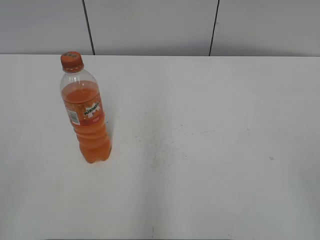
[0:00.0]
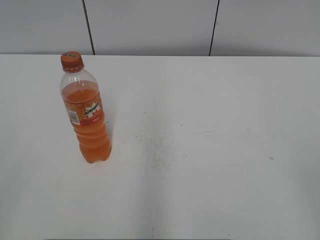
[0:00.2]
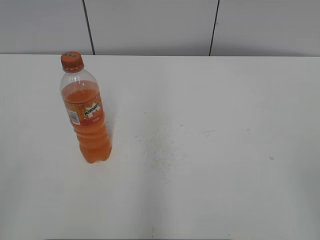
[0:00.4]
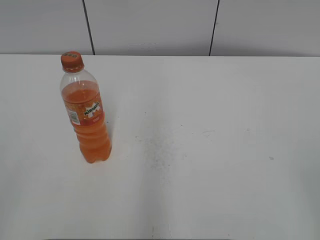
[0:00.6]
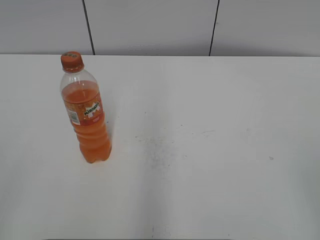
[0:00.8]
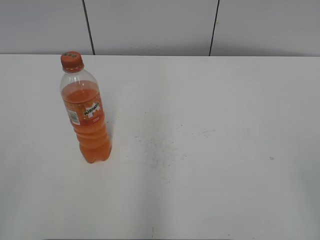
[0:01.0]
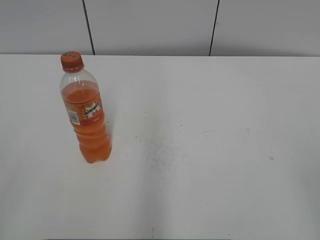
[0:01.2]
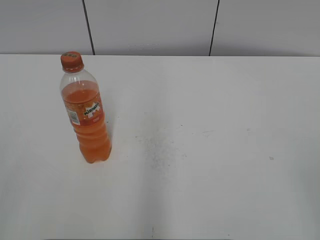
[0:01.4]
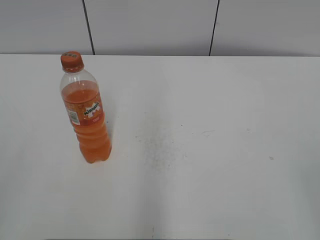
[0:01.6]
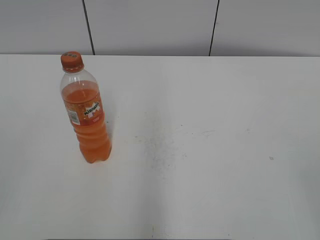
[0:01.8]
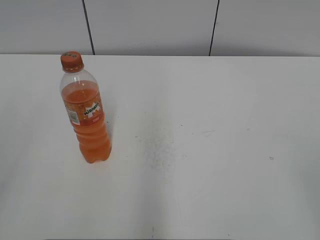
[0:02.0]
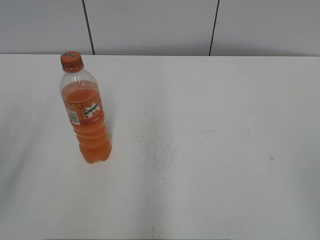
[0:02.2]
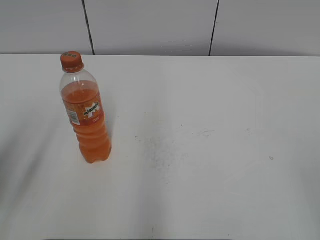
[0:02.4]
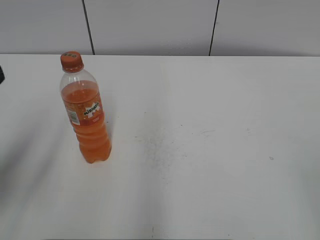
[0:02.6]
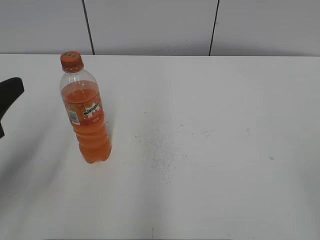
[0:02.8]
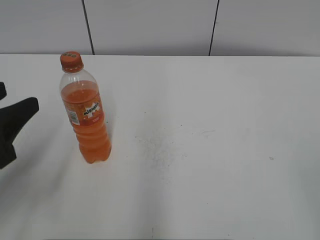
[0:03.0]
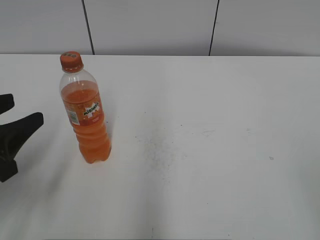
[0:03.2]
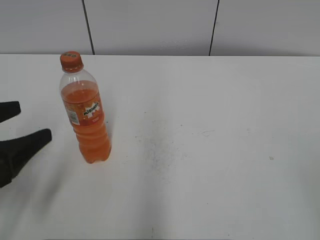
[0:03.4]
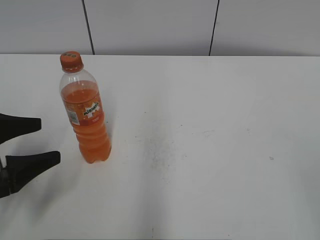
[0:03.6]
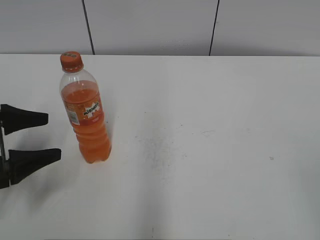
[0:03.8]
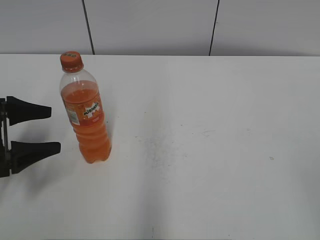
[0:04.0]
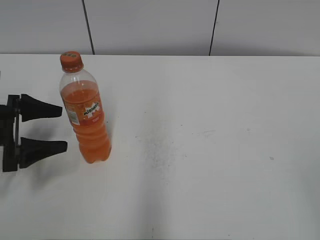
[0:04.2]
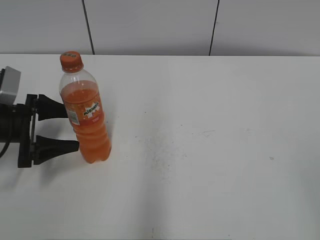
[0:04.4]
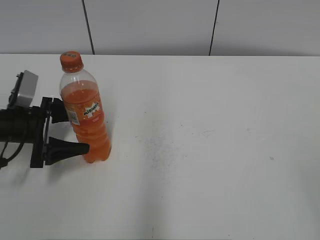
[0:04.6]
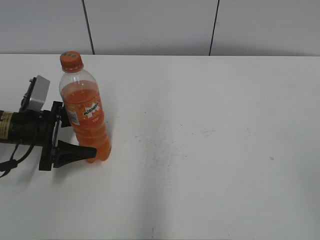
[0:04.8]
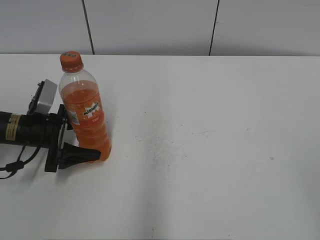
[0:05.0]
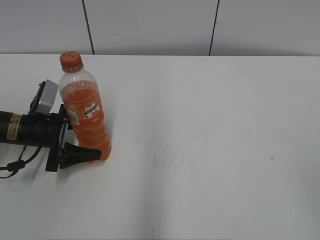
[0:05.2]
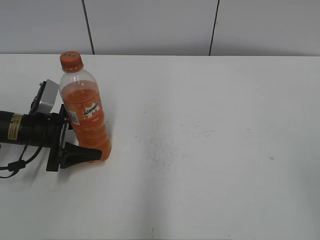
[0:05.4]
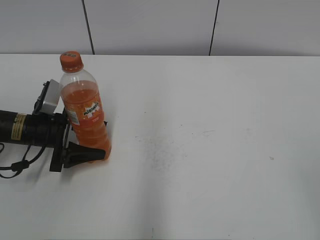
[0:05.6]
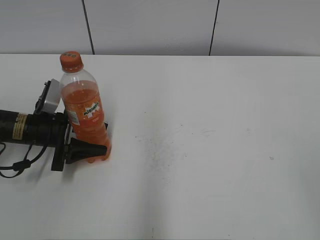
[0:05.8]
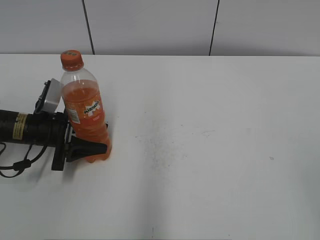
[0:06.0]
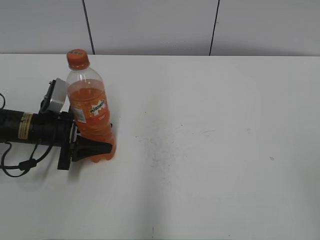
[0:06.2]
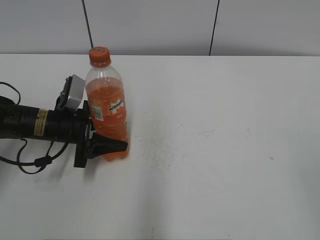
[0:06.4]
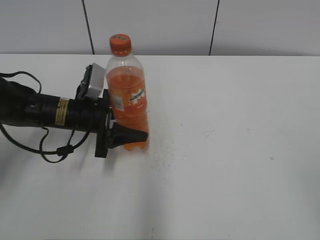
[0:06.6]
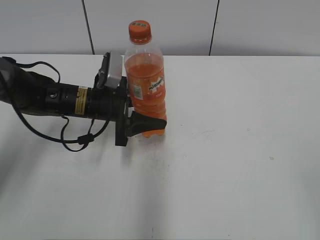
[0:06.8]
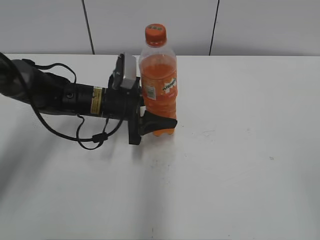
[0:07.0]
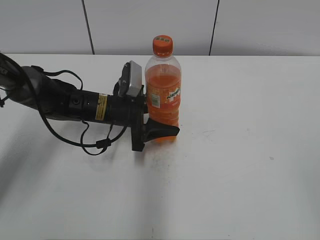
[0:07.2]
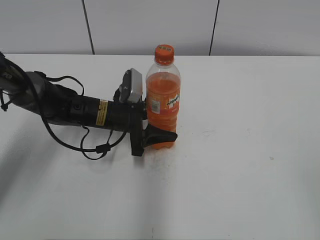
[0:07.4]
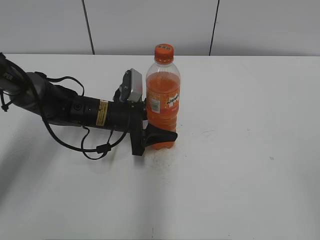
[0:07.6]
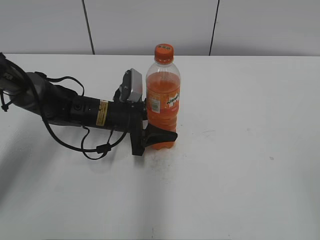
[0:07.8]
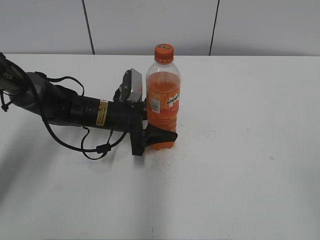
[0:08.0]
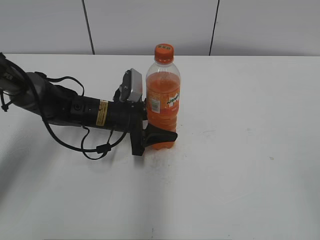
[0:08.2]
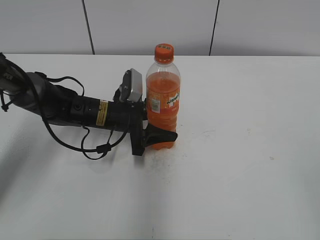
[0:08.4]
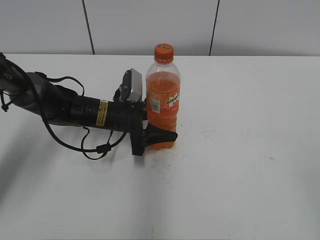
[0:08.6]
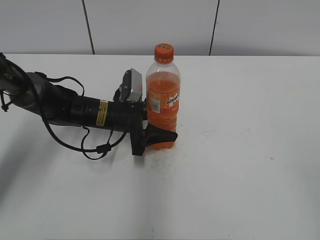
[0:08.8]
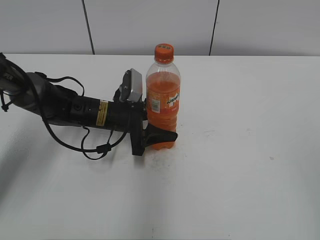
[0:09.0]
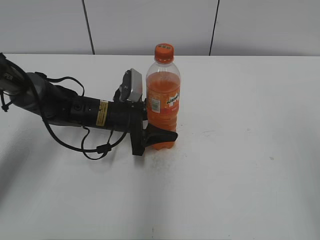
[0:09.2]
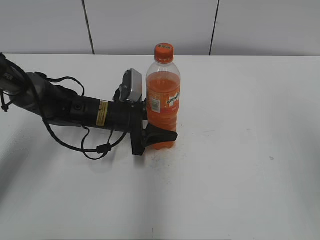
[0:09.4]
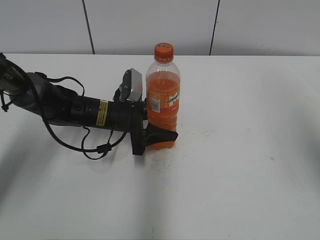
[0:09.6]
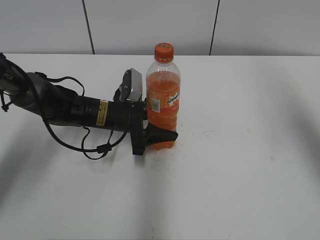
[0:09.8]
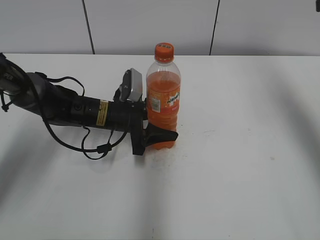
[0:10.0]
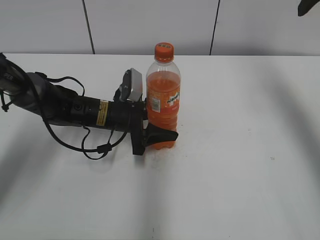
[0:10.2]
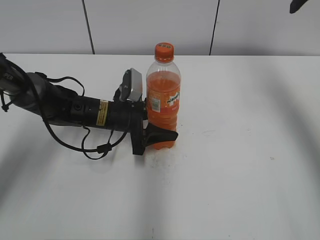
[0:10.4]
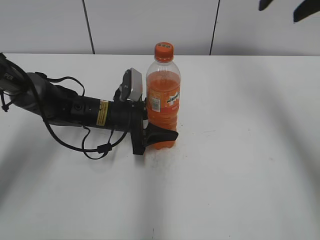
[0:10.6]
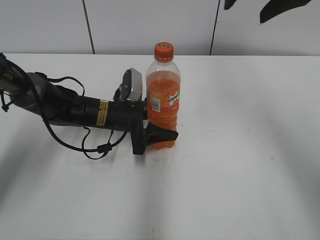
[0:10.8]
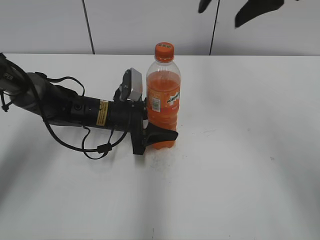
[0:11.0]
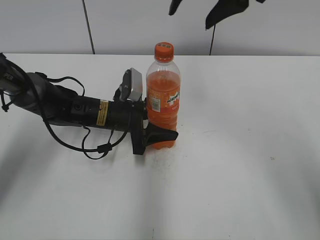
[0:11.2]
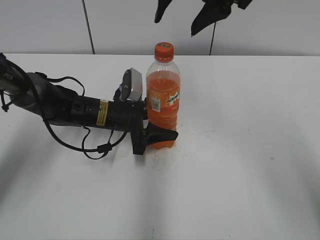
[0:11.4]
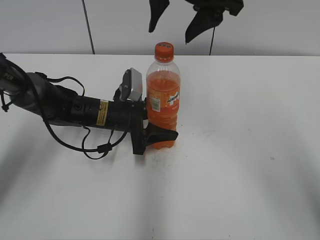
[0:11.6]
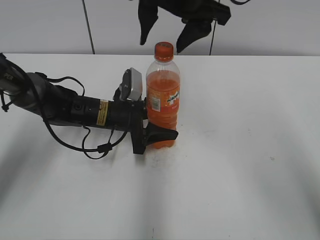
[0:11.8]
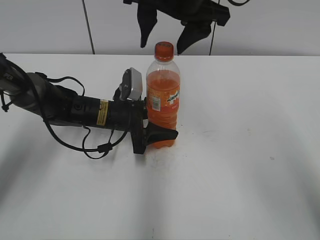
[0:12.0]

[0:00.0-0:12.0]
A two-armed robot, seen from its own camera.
Step, 0:00.0 to 0:05.8: Grab the Mirinda with the left hand.
Step, 0:06.0 to 0:08.0: Move the Mirinda from left to right.
0:01.6 to 0:03.0: The left gripper moves forward and downward, approximately 20 cm.
0:03.0 to 0:04.4: The left gripper heads forward and downward, covering some 15 cm, and opens up.
0:04.4 to 0:06.0: The left gripper ends up about 5 cm from where it was, and closes.
0:06.0 to 0:07.6: The left gripper is displaced to the right by roughly 15 cm.
0:09.0 to 0:10.4: The right gripper shifts roughly 35 cm forward.
0:10.4 to 0:12.0: The right gripper shifts about 25 cm to the left.

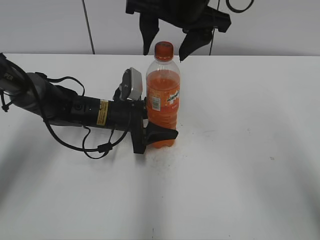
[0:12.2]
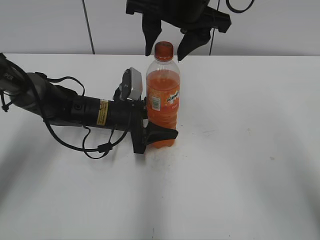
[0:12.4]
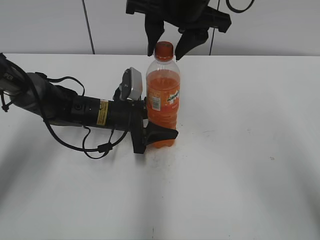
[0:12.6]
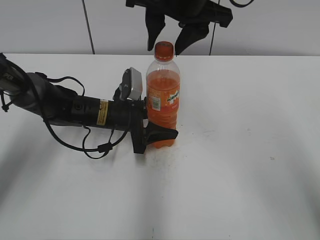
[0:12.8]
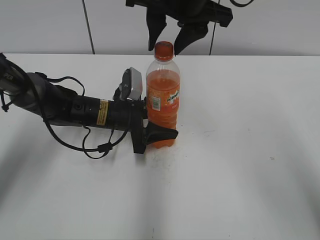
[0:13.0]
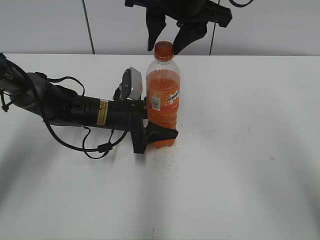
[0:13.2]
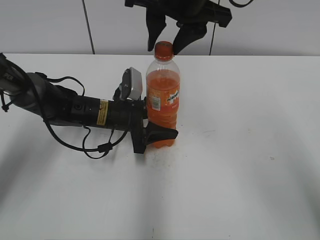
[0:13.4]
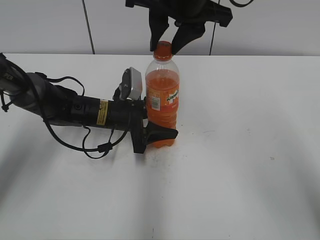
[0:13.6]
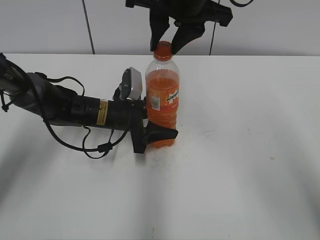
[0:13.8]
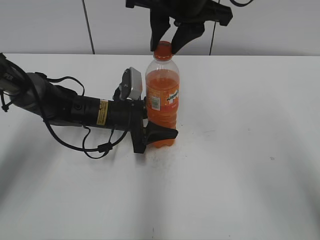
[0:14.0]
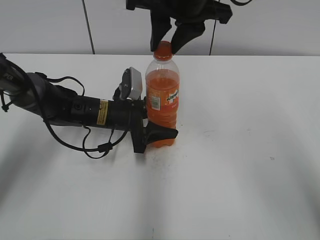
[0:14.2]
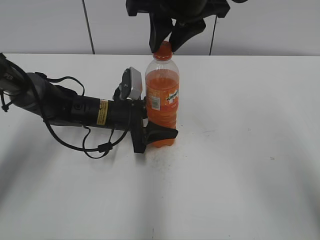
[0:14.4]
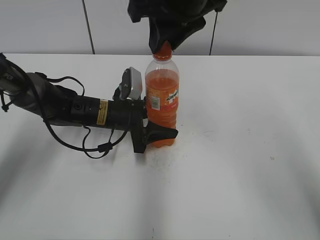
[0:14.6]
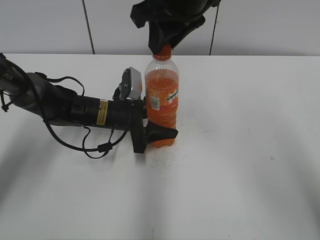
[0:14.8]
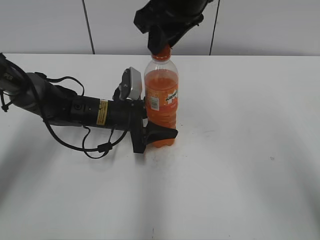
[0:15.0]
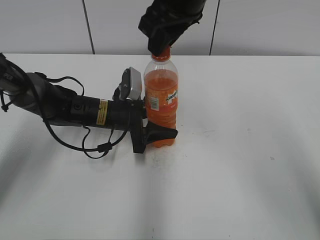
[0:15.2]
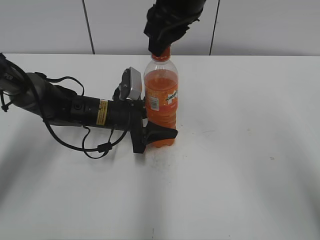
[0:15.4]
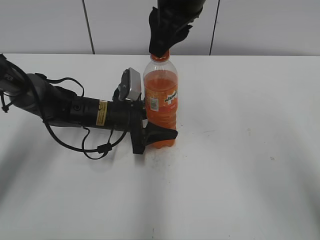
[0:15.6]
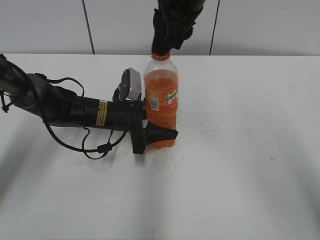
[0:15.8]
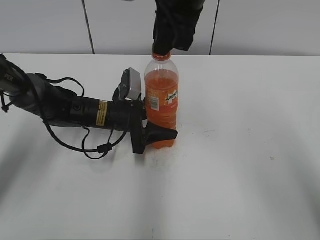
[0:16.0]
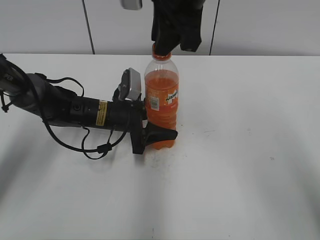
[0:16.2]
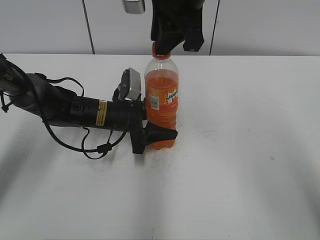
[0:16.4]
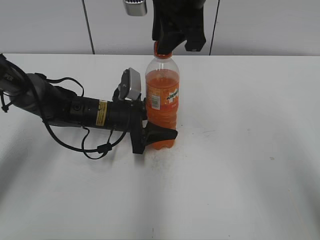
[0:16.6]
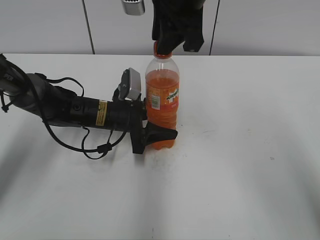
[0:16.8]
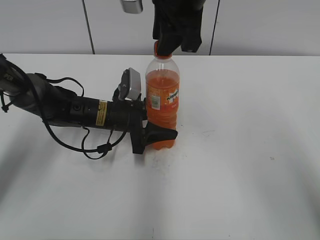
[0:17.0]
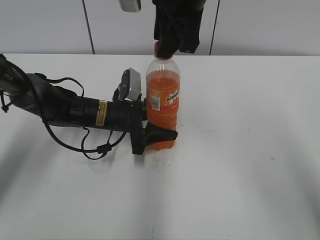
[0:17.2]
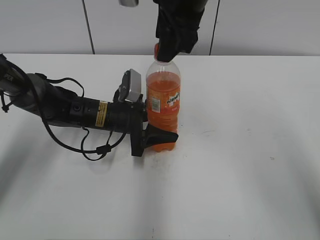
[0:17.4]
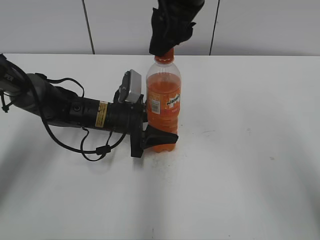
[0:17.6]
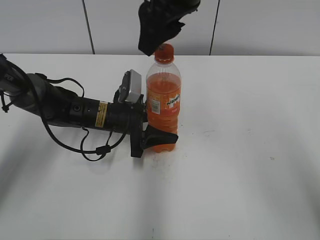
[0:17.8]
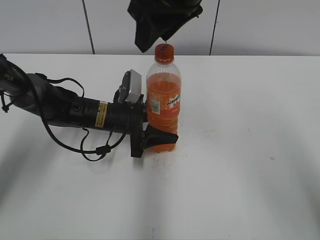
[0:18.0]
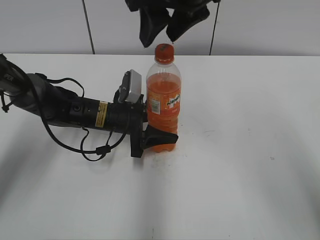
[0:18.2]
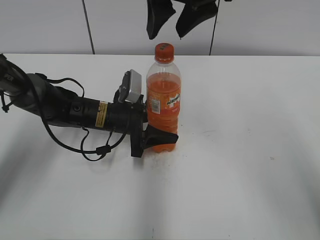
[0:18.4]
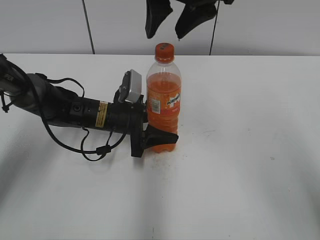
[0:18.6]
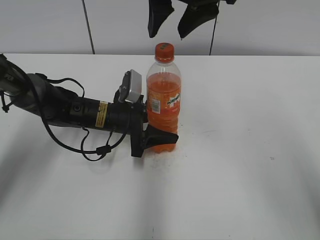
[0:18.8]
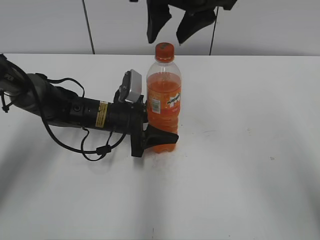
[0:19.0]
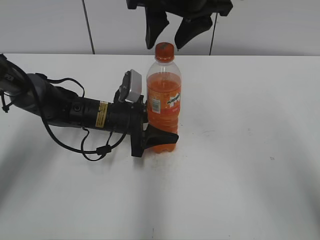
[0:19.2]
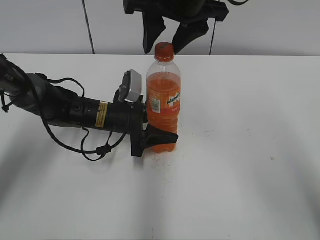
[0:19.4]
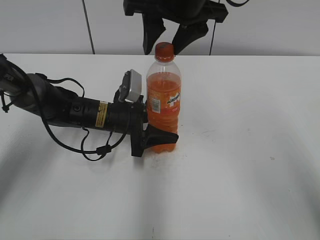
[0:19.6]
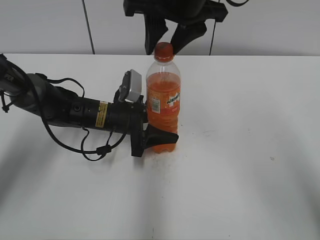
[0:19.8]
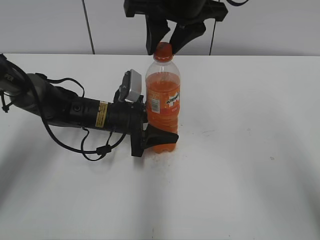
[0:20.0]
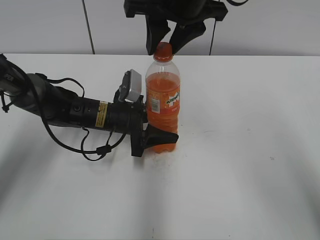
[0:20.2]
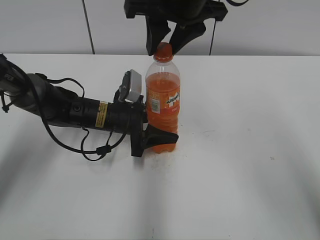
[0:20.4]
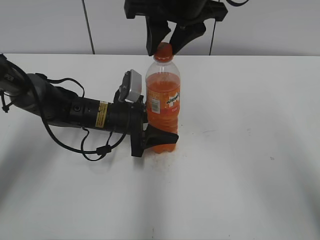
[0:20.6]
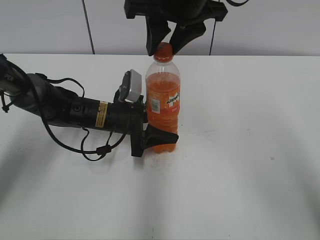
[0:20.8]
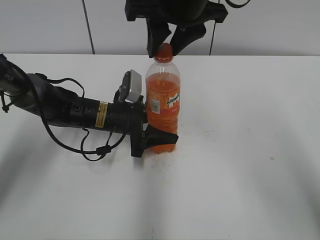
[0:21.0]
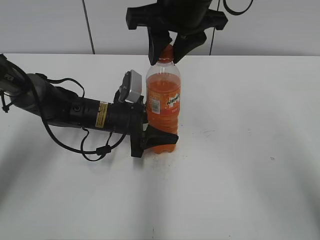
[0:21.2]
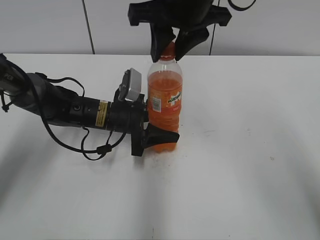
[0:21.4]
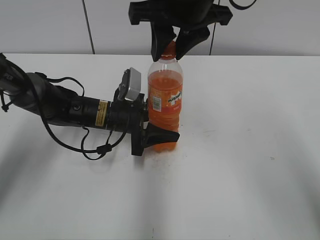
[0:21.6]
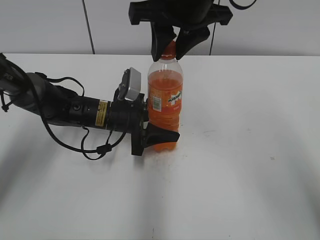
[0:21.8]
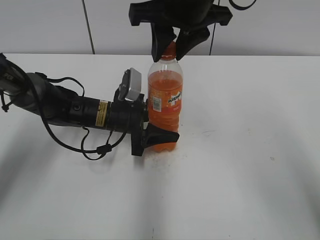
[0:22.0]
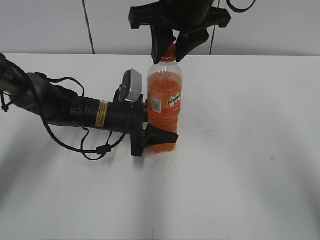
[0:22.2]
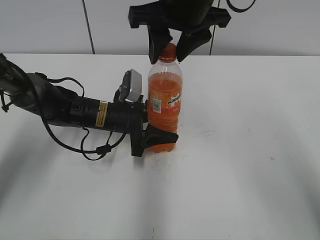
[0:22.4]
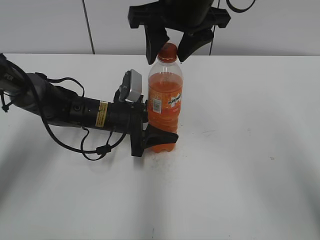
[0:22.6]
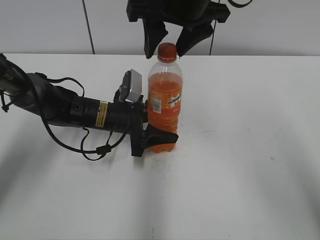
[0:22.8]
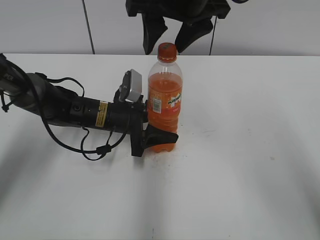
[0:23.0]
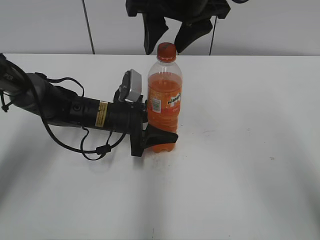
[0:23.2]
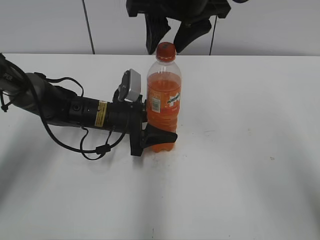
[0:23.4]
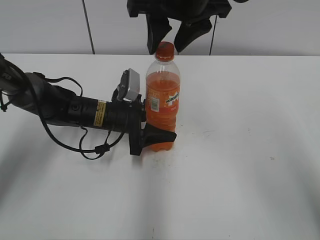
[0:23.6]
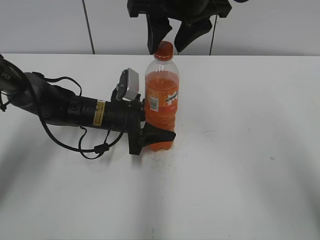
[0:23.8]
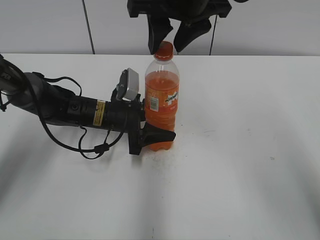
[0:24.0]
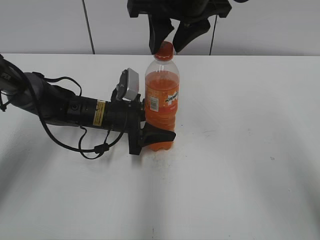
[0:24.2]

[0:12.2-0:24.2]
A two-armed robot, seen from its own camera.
0:12.2 to 0:13.8: The right gripper closes its fingers.
0:16.6 to 0:18.2: The right gripper opens.
0:18.2 to 0:19.8: The grippers stay close to where they were, moving slightly.
0:19.8 to 0:21.2: The two grippers keep their place.
0:21.2 to 0:22.6: The right gripper opens.
0:22.6 to 0:24.2: The right gripper closes its fingers.
